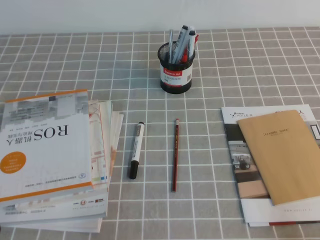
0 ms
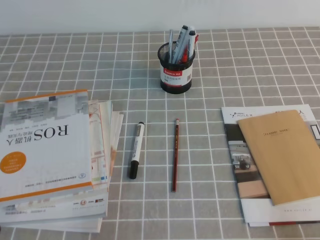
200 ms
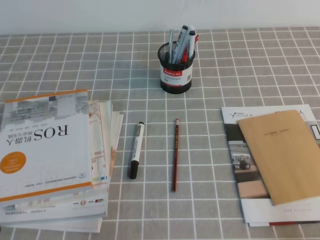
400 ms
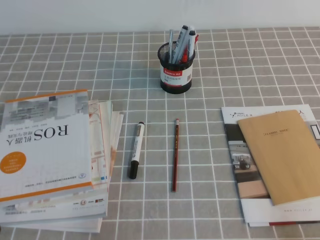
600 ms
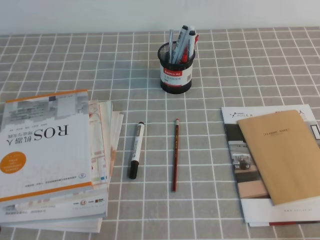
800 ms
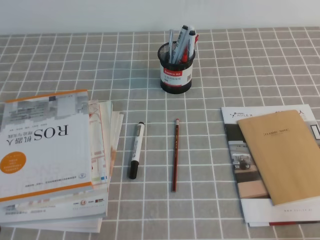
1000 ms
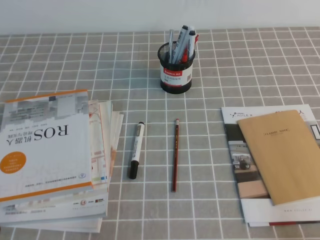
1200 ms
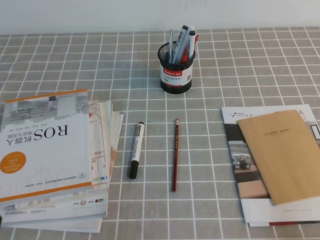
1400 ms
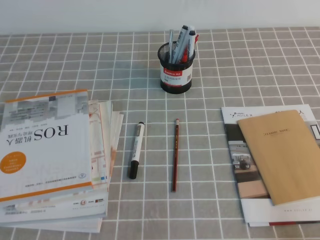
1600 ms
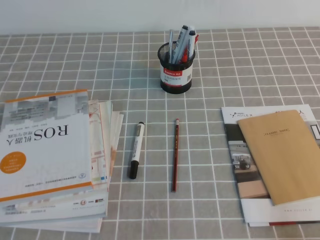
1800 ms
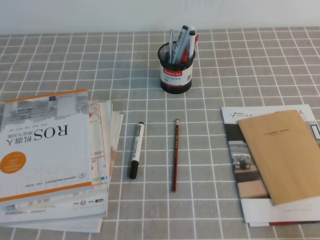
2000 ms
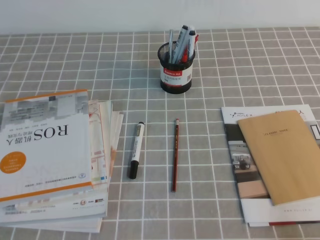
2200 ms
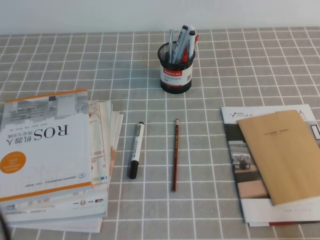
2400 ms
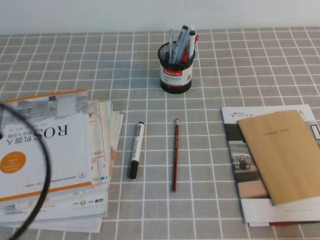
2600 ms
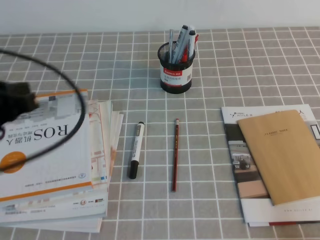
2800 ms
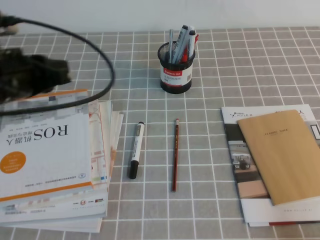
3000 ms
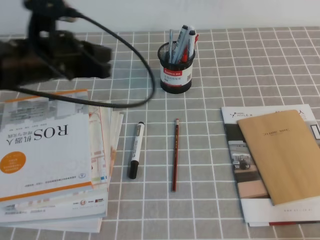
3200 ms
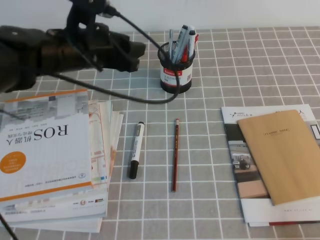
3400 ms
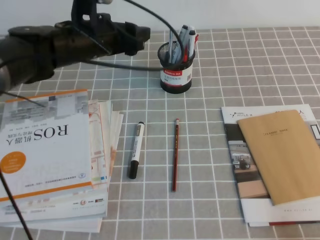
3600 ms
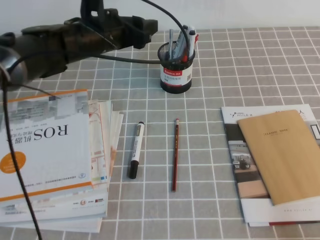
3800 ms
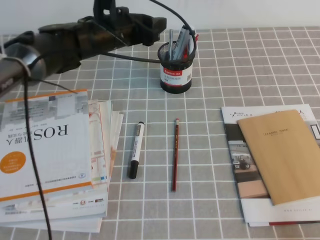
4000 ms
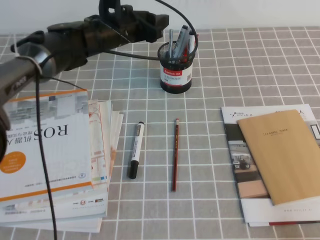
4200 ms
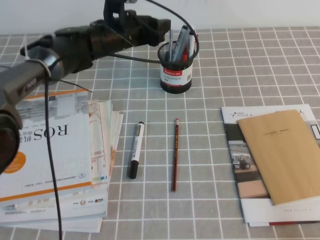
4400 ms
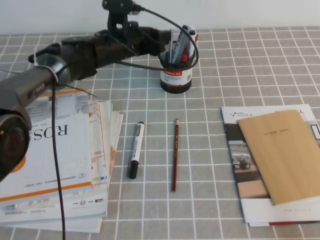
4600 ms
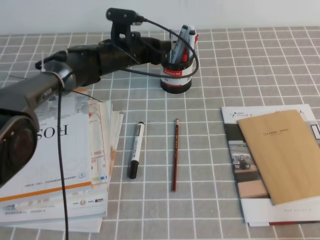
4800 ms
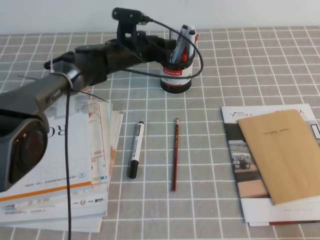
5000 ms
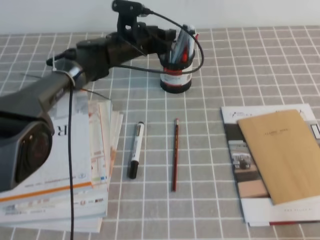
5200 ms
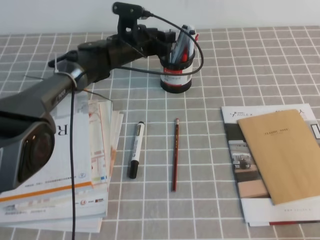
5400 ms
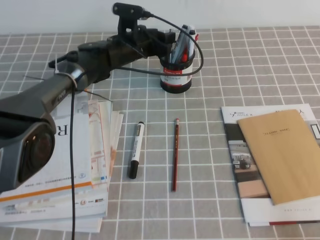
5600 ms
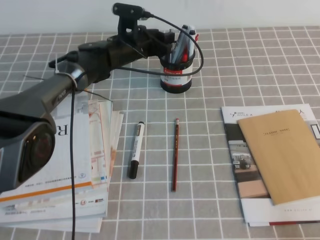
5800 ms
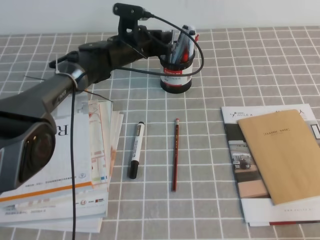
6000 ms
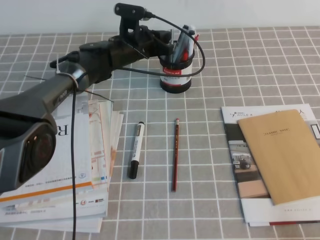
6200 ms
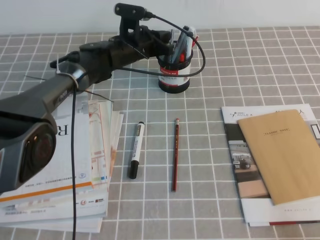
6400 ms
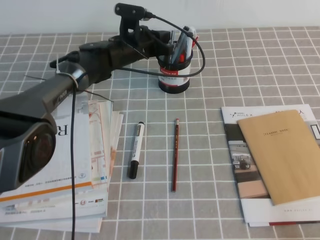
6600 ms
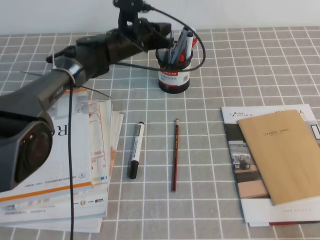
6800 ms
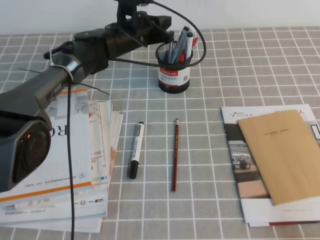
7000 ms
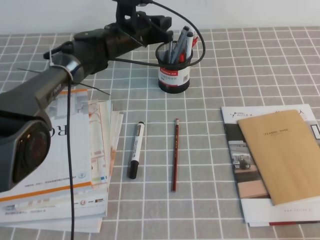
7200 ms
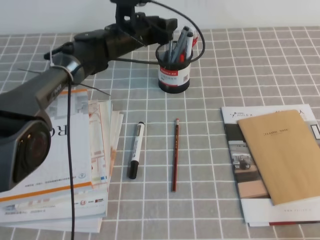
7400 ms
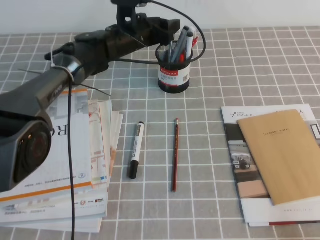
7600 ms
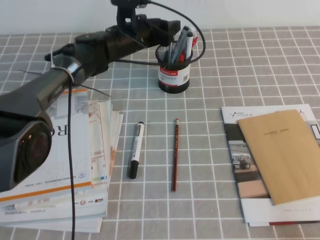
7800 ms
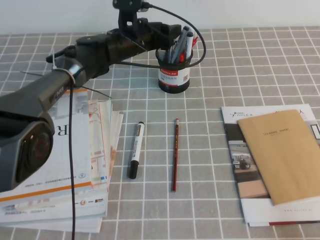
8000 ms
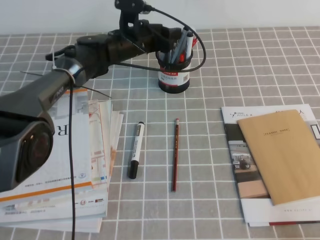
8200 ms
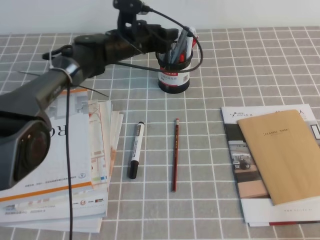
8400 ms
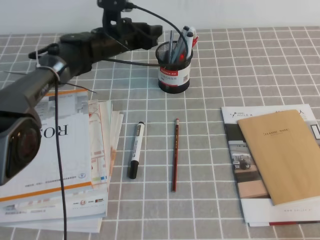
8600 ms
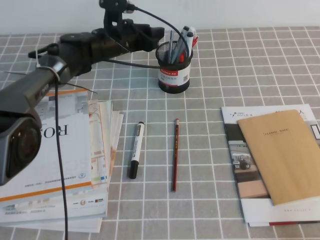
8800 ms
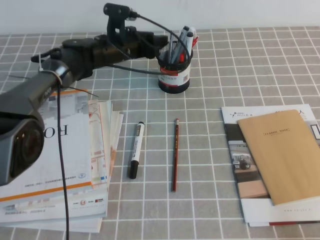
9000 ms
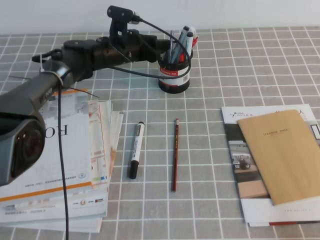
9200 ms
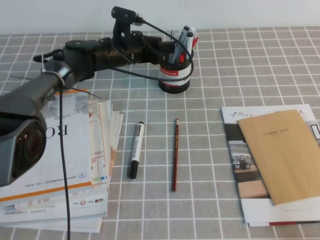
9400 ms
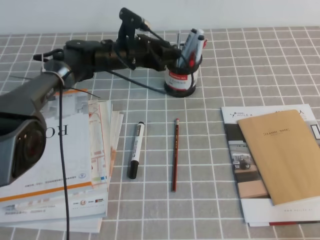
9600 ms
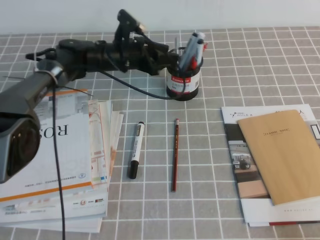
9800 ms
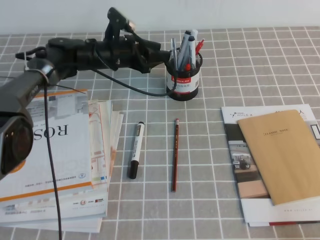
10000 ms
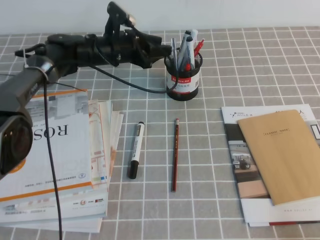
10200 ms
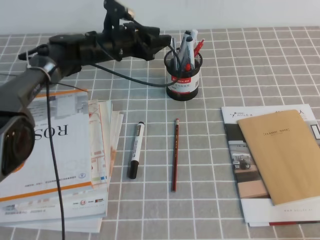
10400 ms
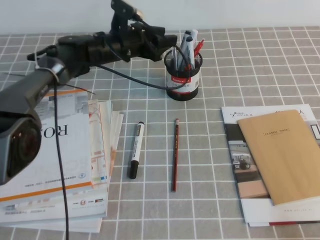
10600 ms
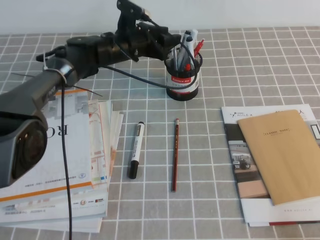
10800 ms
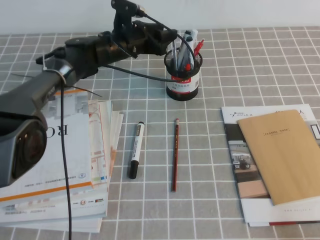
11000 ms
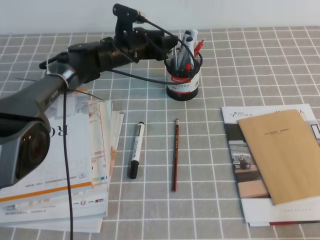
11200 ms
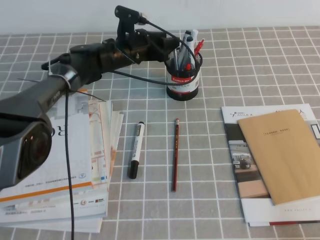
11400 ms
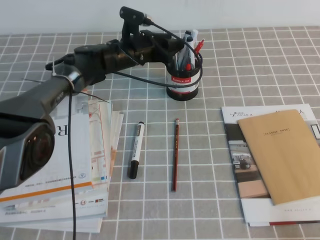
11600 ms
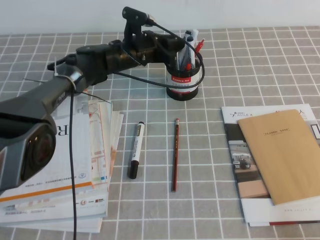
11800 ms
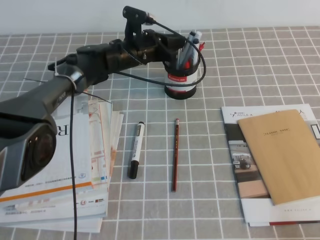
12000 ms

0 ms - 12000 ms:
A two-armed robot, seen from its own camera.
1600 ms - 3000 ms: The left gripper heads forward and upward, covering approximately 25 cm.
3000 ms - 4400 ms: The left gripper moves forward and to the right, about 25 cm, and opens its fingers.
4400 ms - 6000 ms: The left gripper goes approximately 5 cm downward, and closes up.
6000 ms - 7600 ms: The left gripper opens.
7600 ms - 9000 ms: The grippers stay close to where they were, moving slightly.
10400 ms - 12000 ms: The left gripper closes.

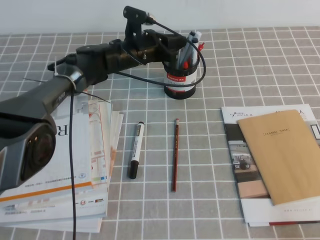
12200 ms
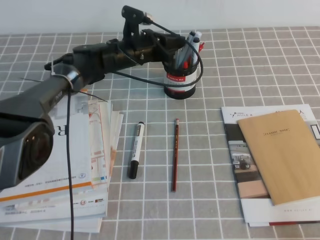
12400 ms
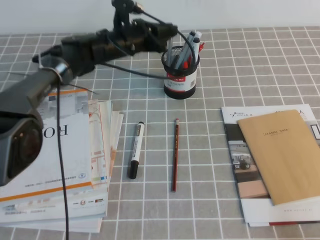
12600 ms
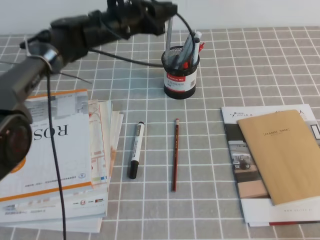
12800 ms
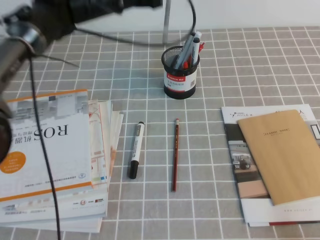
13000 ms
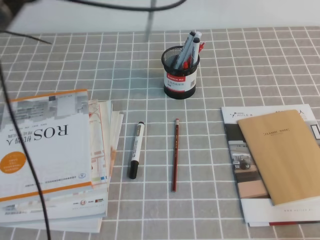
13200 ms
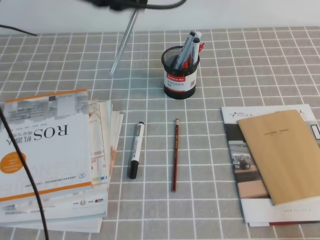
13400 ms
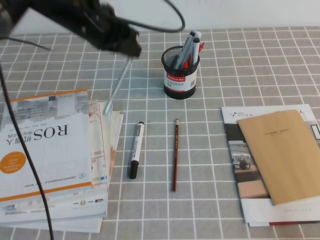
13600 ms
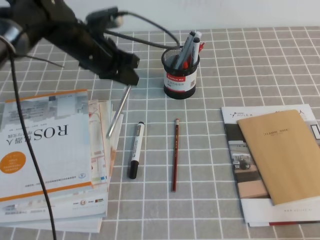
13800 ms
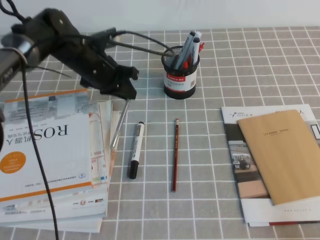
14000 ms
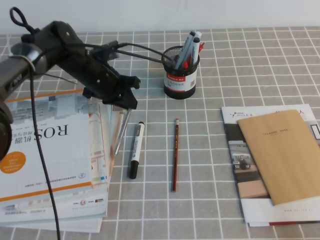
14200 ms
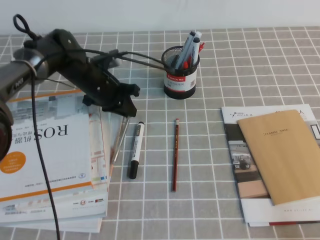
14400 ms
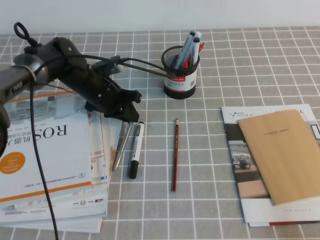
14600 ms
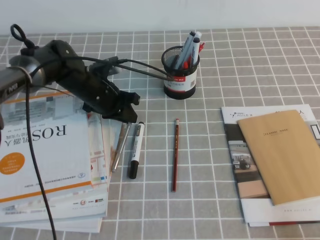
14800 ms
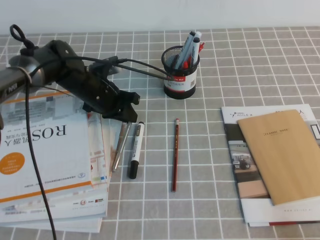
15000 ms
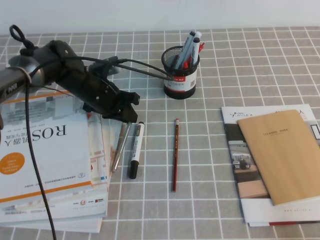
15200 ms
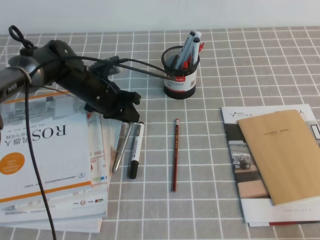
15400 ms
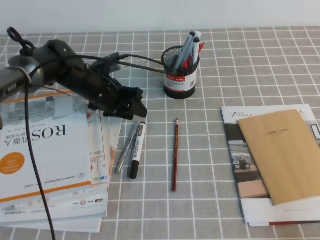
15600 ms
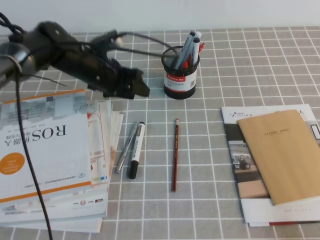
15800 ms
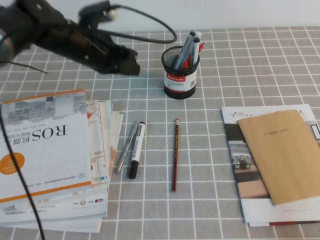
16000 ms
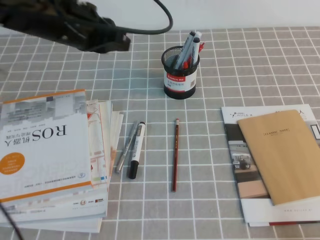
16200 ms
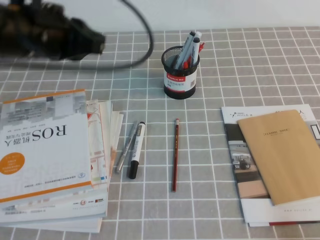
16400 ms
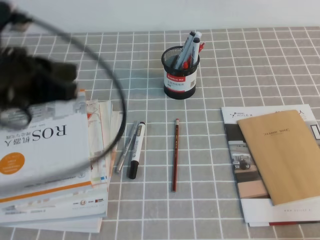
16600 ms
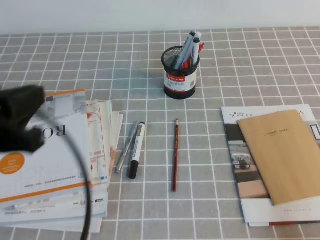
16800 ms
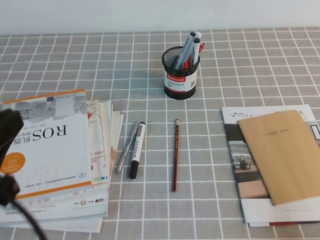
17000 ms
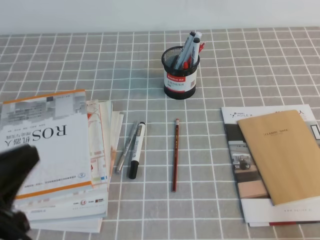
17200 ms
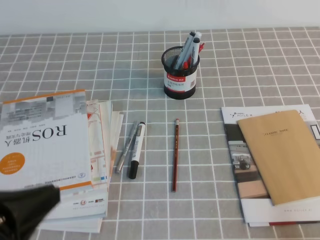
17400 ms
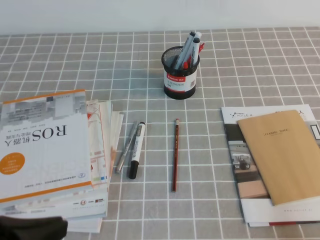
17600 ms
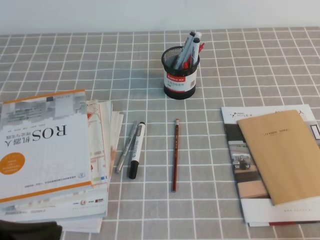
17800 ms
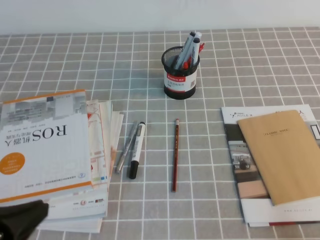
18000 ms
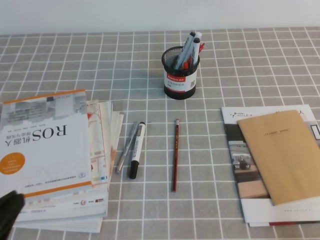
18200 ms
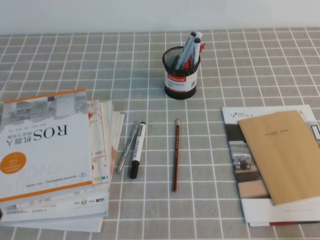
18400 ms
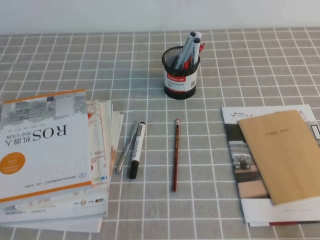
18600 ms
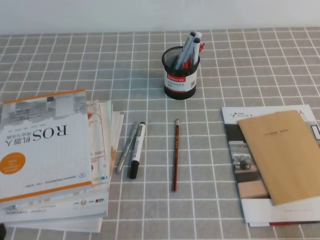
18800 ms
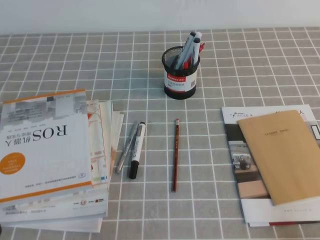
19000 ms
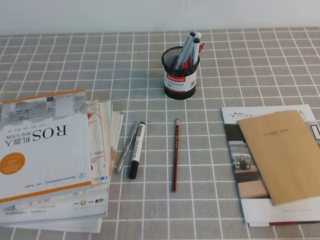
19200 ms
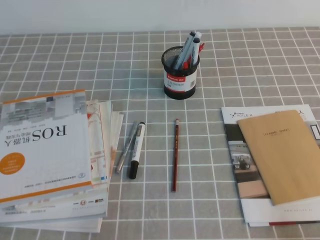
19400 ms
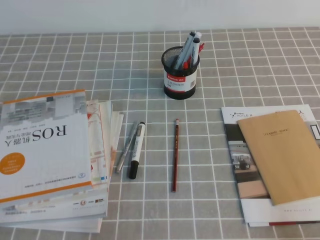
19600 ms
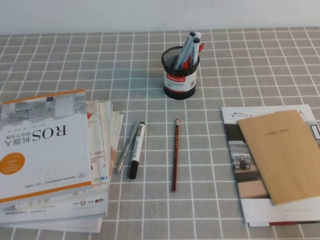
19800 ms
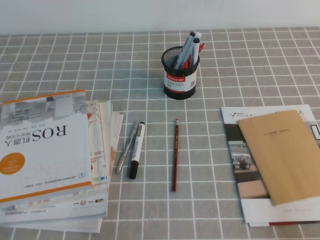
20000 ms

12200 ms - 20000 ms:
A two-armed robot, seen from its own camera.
Step, 12200 ms - 20000 ms: Pick up the pen from the pen holder.
12200 ms - 13800 ms: The left gripper shifts roughly 15 cm upward, to the left and backward.
13800 ms - 15400 ms: The left gripper goes roughly 10 cm downward.
15400 ms - 16800 ms: The left gripper heads backward and upward, covering some 30 cm.
16800 ms - 18400 ms: The left gripper moves downward and backward, about 15 cm.
18400 ms - 20000 ms: The left gripper heads downward, covering some 5 cm.
